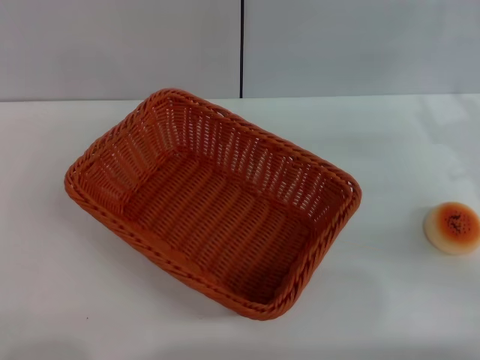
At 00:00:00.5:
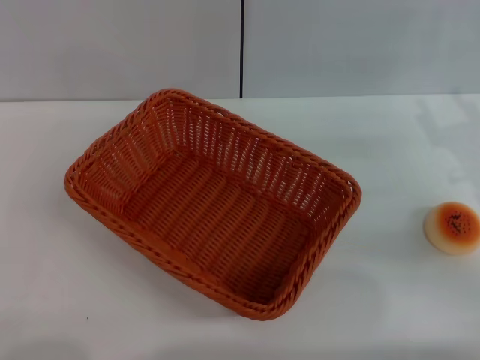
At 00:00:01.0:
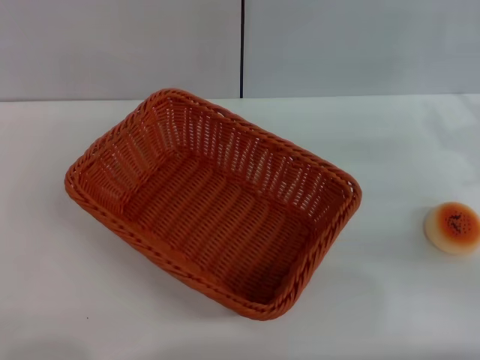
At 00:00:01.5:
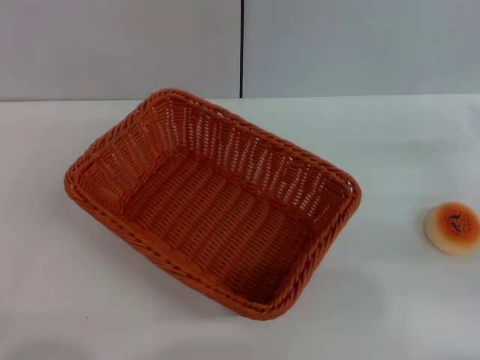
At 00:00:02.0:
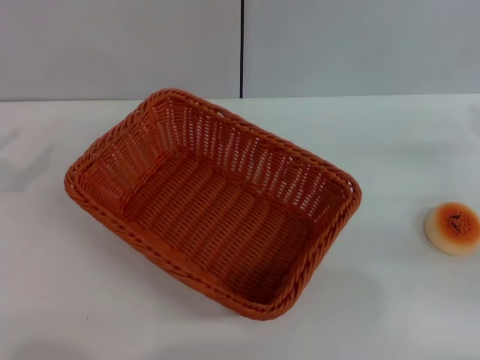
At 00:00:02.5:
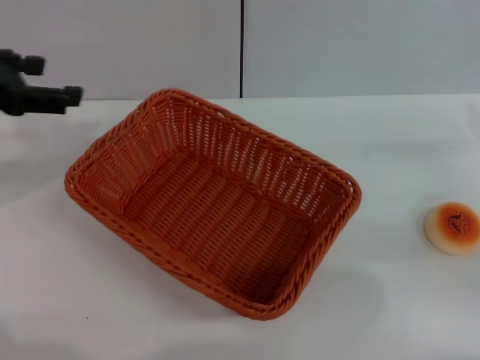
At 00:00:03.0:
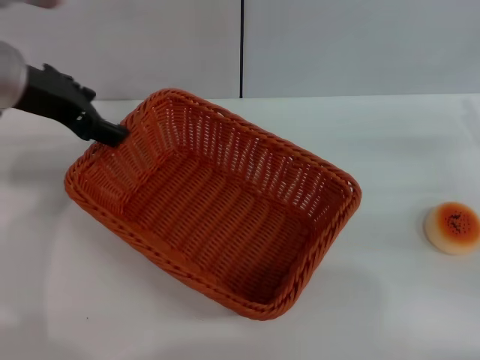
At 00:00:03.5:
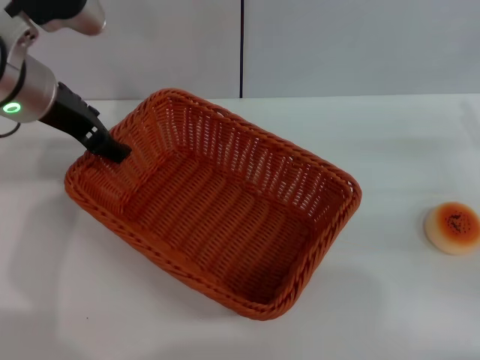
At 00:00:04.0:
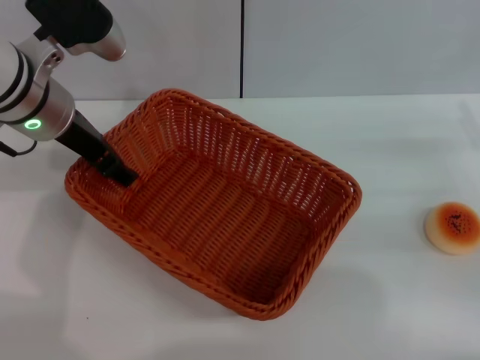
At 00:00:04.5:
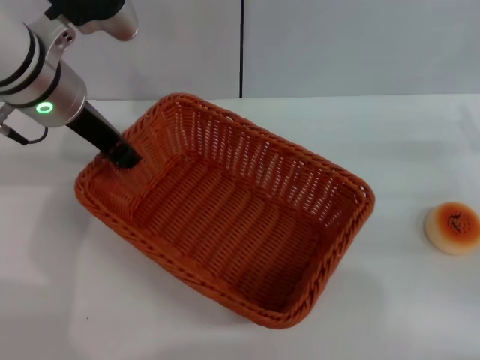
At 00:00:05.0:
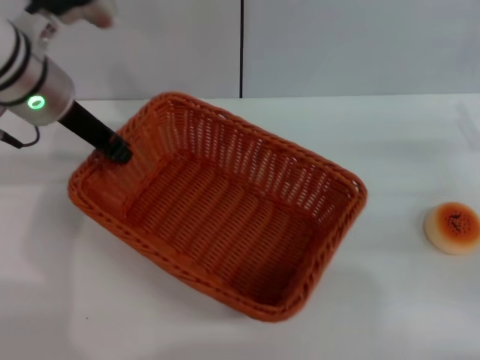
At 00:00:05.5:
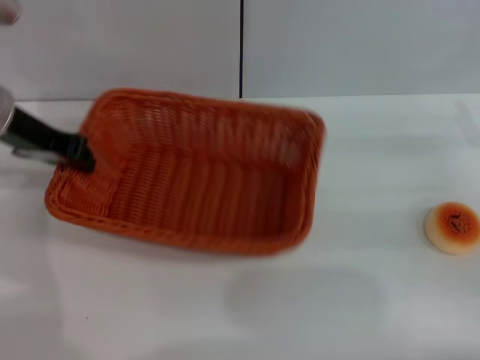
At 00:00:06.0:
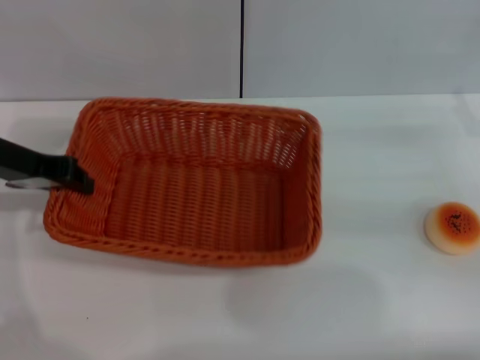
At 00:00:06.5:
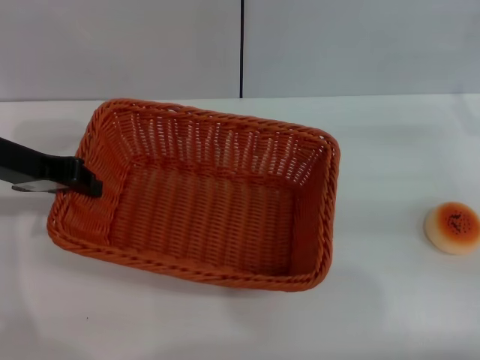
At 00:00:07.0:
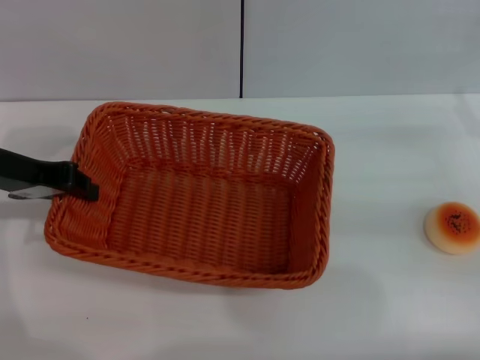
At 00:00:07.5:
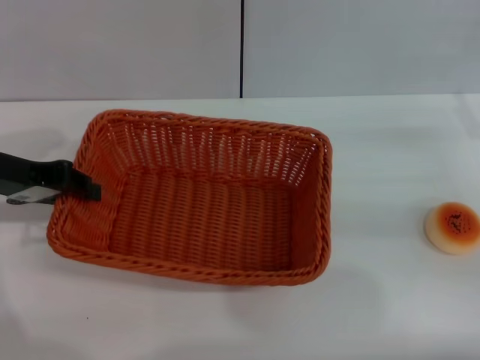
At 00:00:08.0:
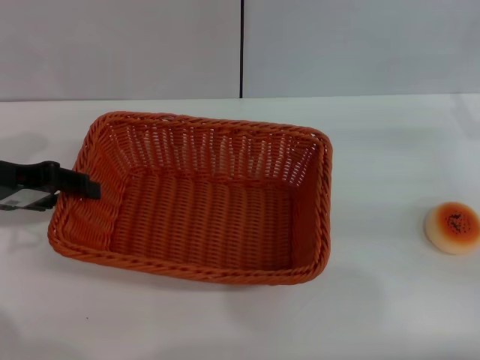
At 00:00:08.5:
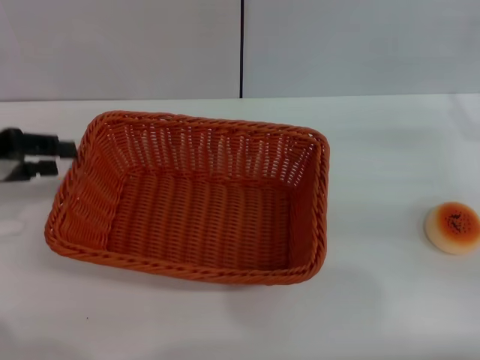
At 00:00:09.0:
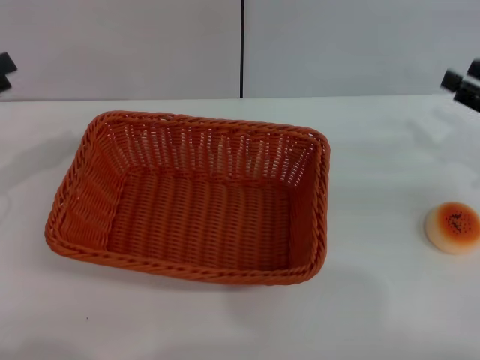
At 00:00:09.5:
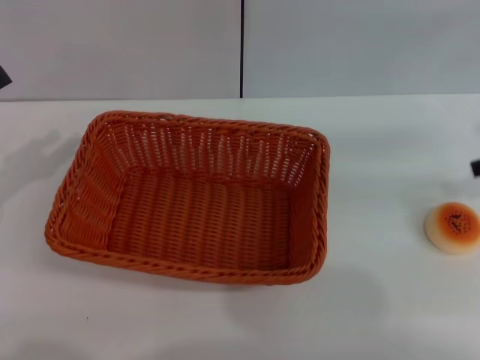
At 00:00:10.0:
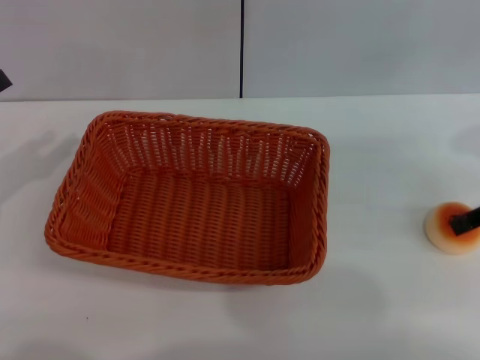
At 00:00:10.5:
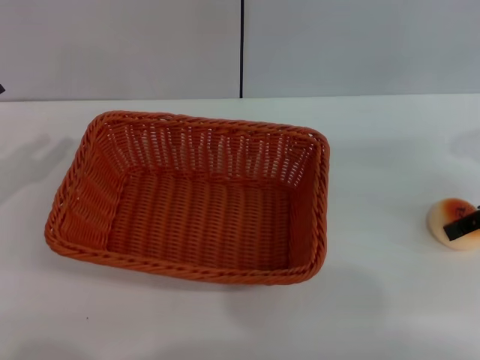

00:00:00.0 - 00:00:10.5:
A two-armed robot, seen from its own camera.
Step, 00:00:00.0 - 00:00:08.5: Move the basket to the center of view with the left gripper.
00:00:00.0 - 00:00:02.0: The right gripper moves to the right, roughly 5 cm.
00:00:02.0 - 00:00:04.0: The left gripper moves to the right and forward, about 25 cm.
00:00:04.0 - 00:00:06.5: The left gripper moves to the left, some 5 cm, and closes its fingers.
00:00:06.5 - 00:00:08.5: The left gripper travels to the left by about 5 cm, and opens its fingers.
00:00:08.5 - 00:00:10.5: The left gripper shifts by roughly 5 cm. Meanwhile the right gripper travels upward by approximately 5 cm.

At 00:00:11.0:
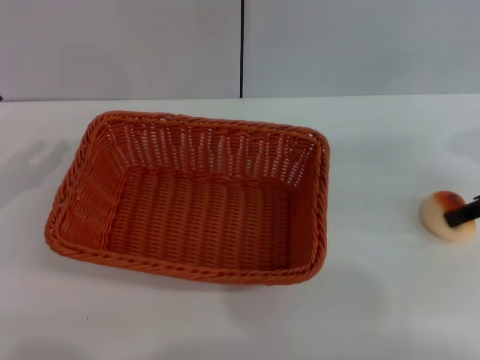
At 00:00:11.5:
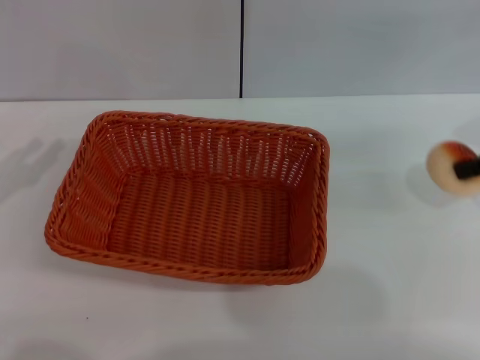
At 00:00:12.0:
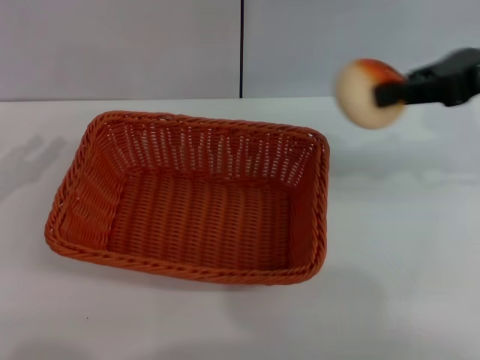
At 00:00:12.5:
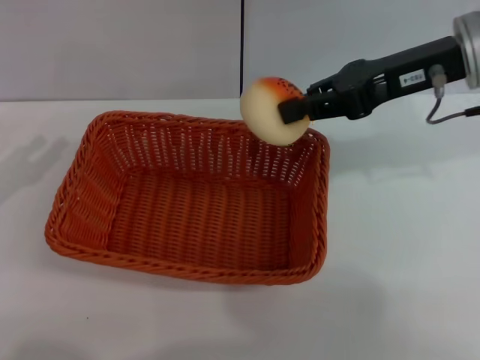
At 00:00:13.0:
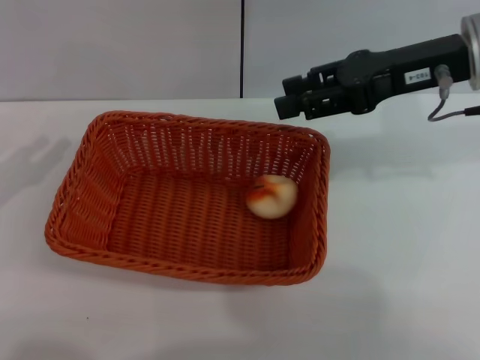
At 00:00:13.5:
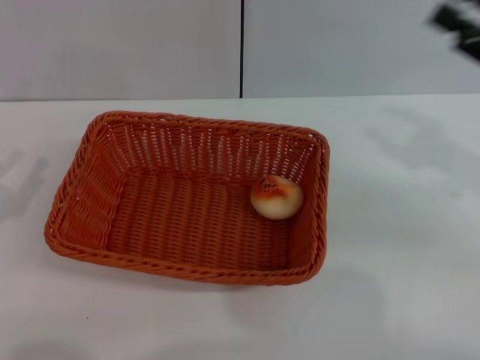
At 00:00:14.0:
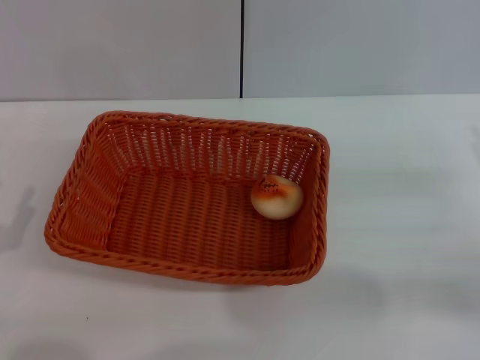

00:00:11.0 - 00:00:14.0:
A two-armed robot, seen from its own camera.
Step, 00:00:12.0 - 00:00:13.0: Place the egg yolk pastry into the basket with the right gripper.
00:00:11.0 - 00:00:12.5: The right gripper moves to the left and upward, some 15 cm, and closes.
00:00:12.5 - 00:00:14.0: The left gripper moves backward and downward, approximately 10 cm; the right gripper moves to the right, downward and backward, some 25 cm, and opens up.
